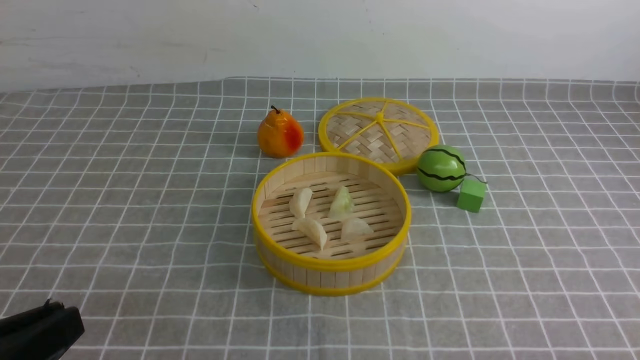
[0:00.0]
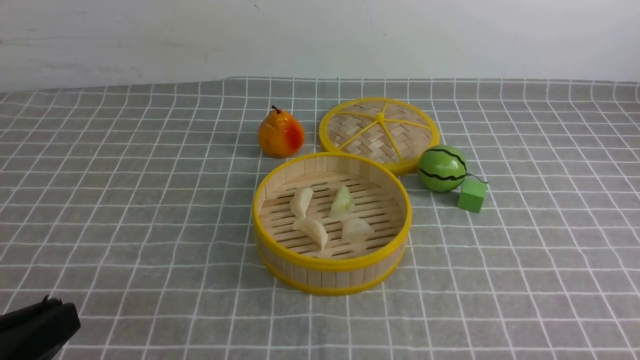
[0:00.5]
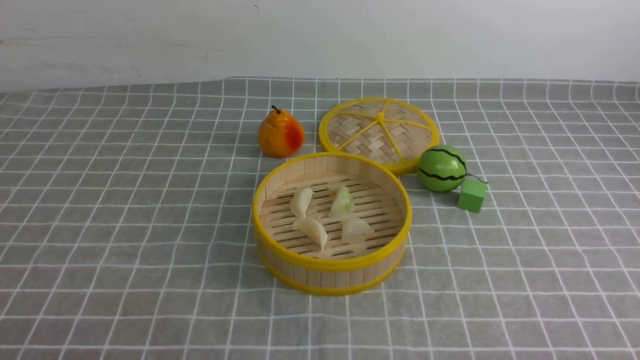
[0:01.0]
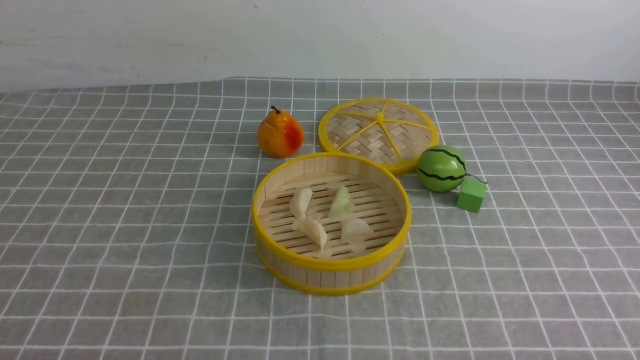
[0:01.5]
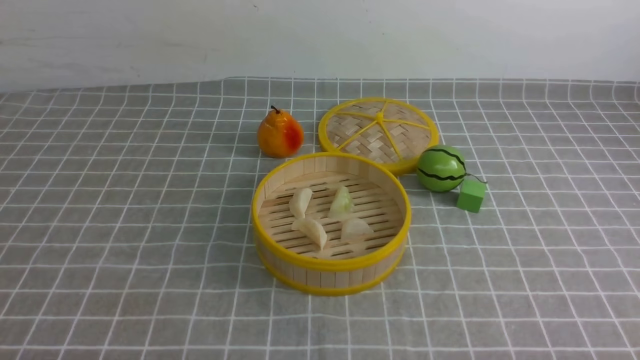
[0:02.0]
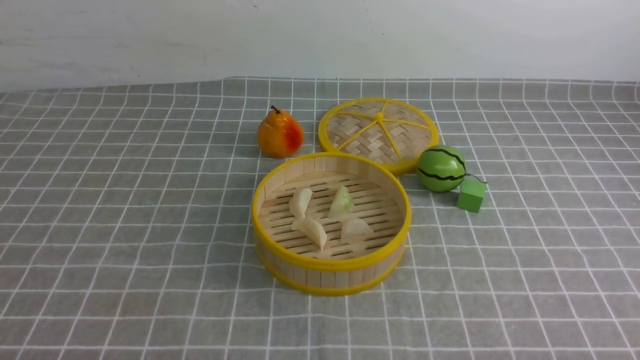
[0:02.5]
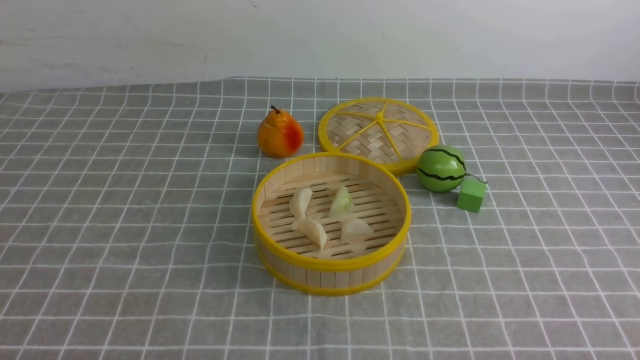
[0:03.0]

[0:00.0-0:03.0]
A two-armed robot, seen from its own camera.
Task of the whole recording: put the dumplings into the steamer on the table with the grey tablecloth.
0:00.0 to 0:01.5: The left gripper goes roughly 10 cm downward.
0:01.5 to 0:03.0: Both grippers stay about where they are.

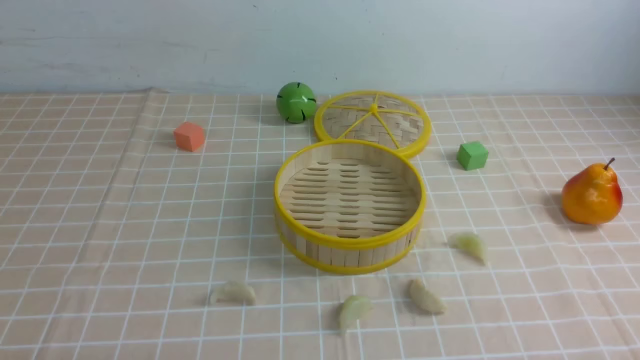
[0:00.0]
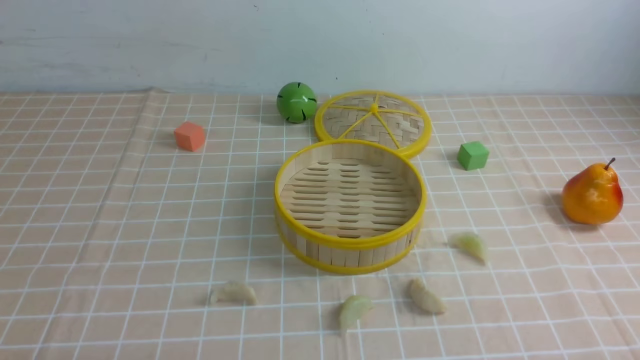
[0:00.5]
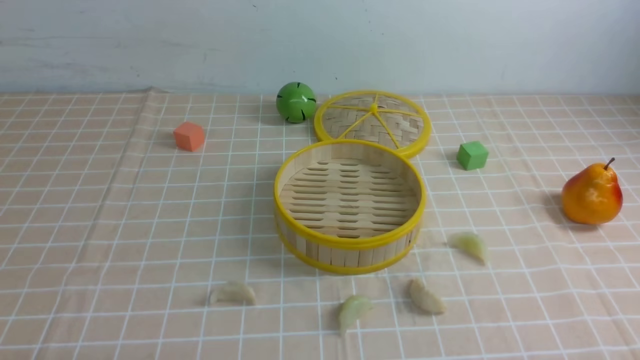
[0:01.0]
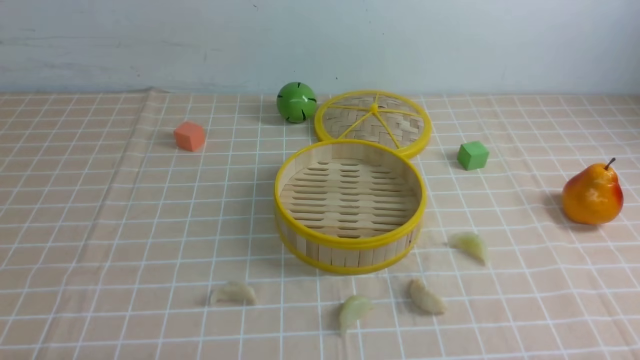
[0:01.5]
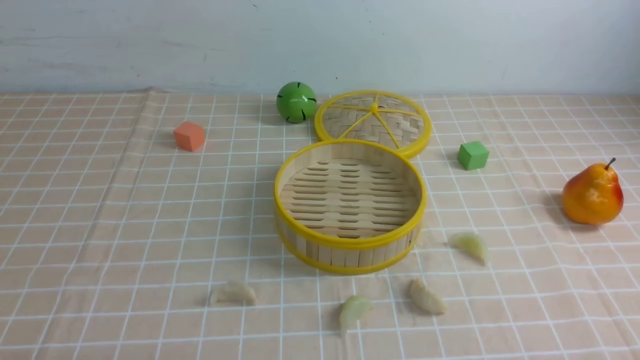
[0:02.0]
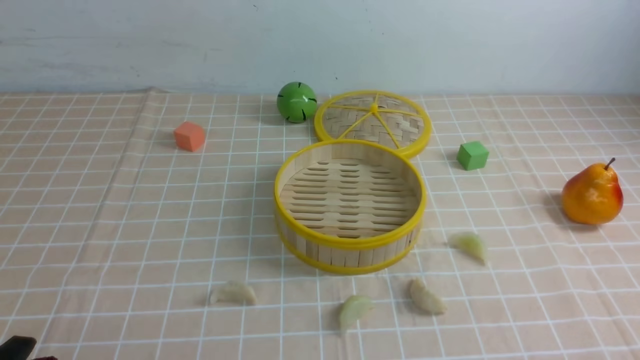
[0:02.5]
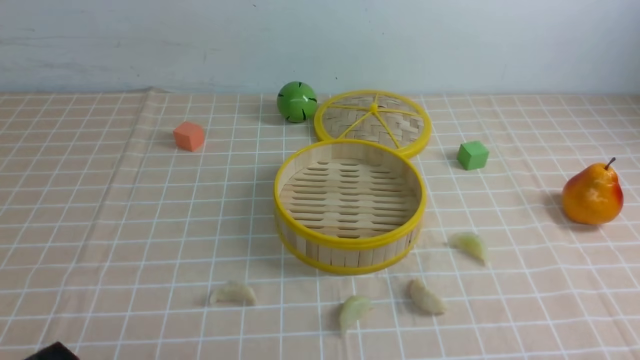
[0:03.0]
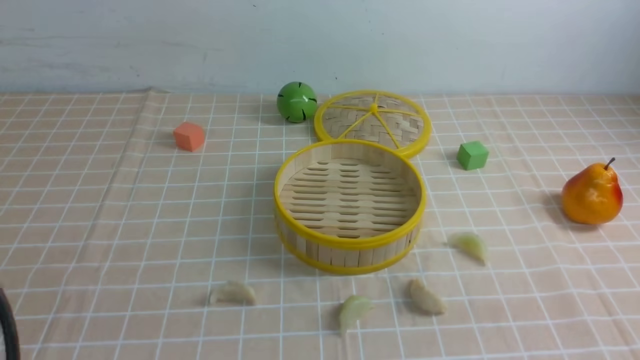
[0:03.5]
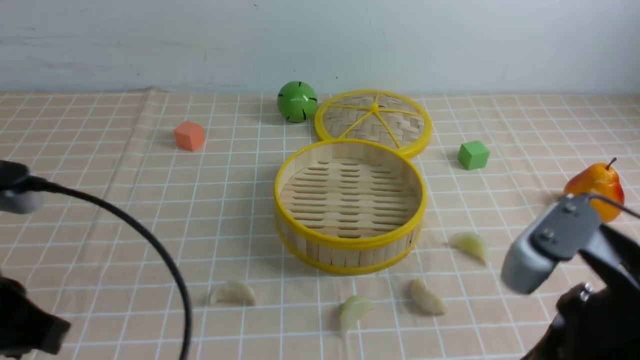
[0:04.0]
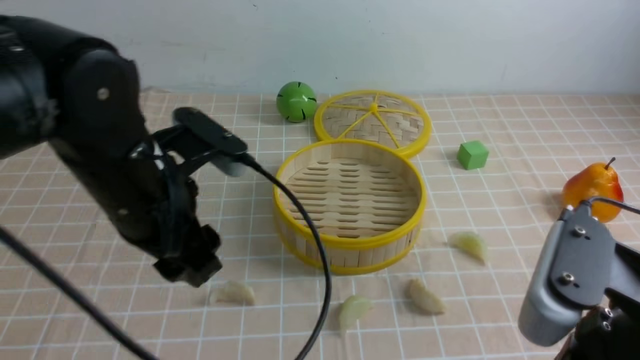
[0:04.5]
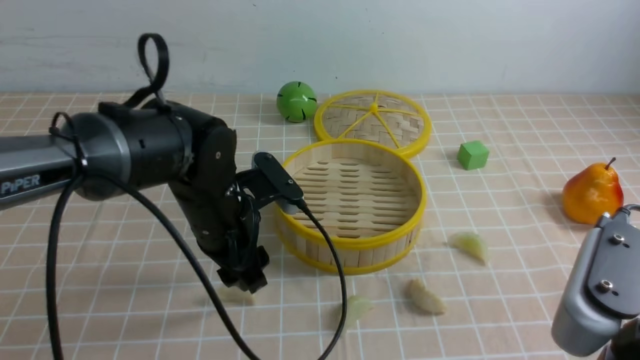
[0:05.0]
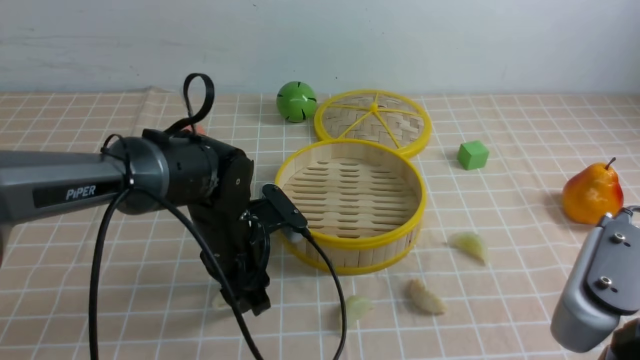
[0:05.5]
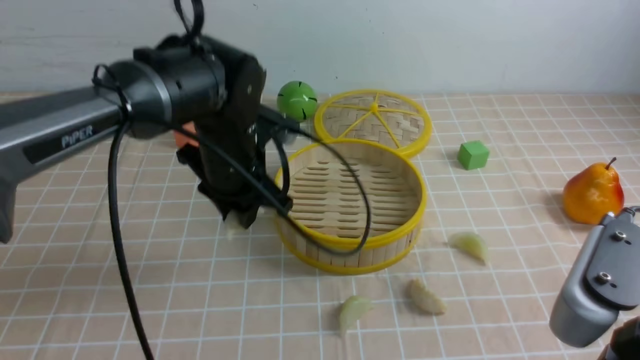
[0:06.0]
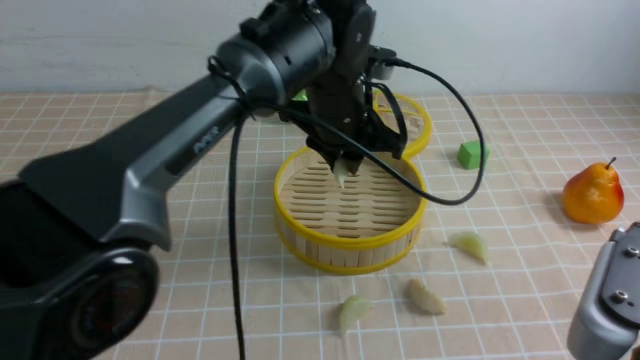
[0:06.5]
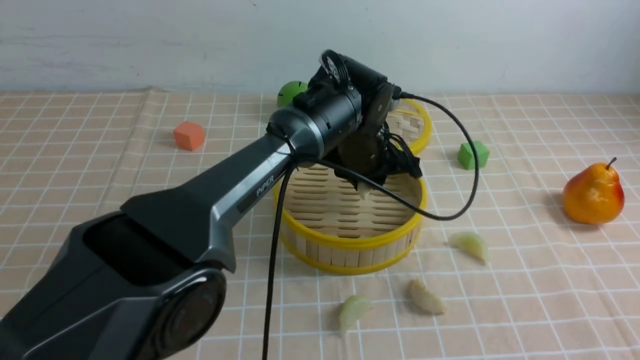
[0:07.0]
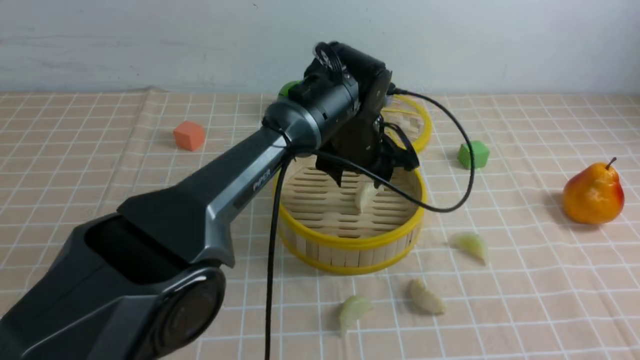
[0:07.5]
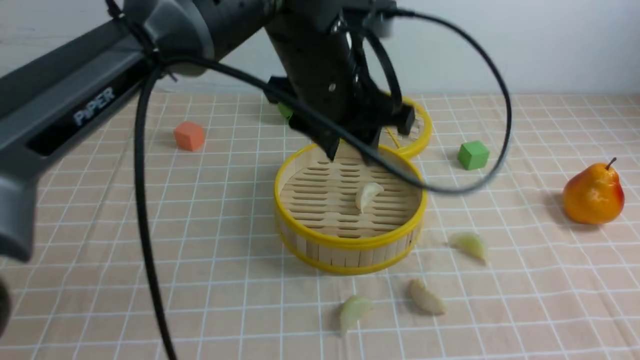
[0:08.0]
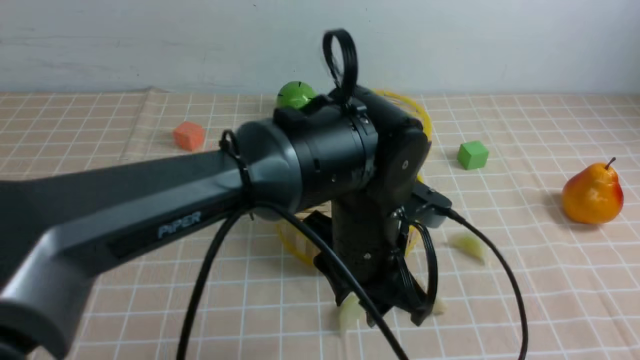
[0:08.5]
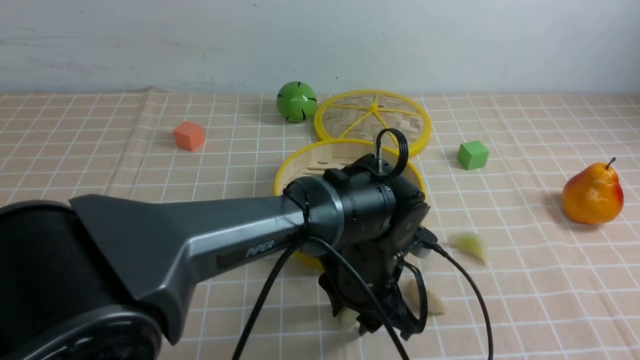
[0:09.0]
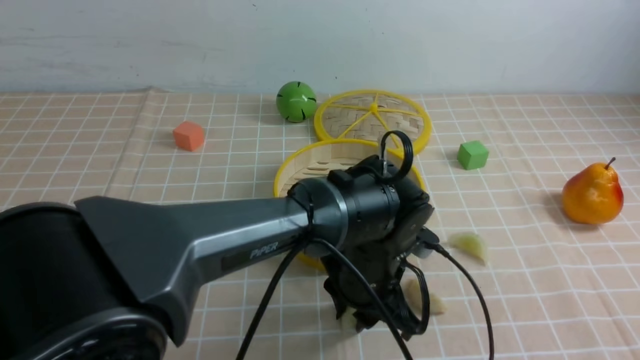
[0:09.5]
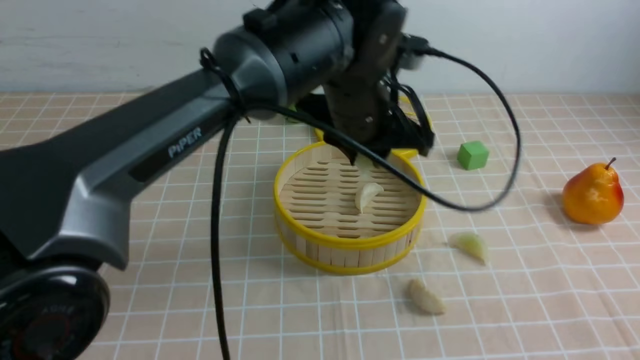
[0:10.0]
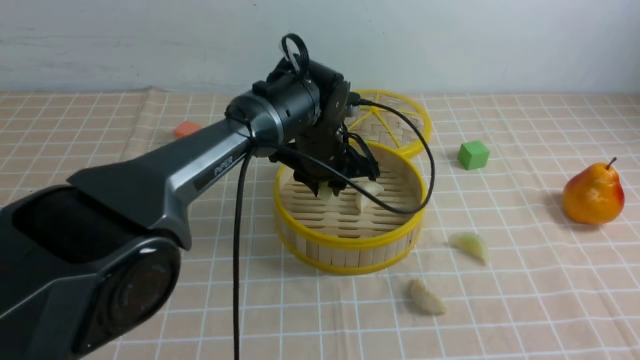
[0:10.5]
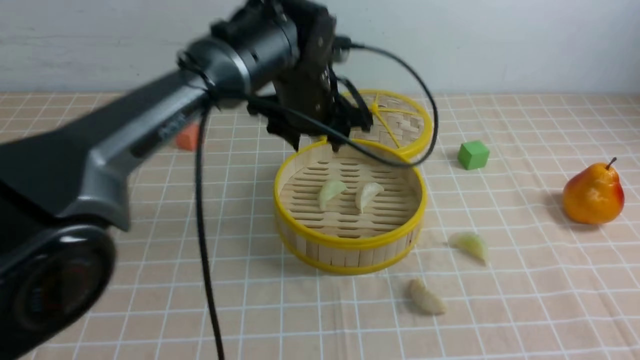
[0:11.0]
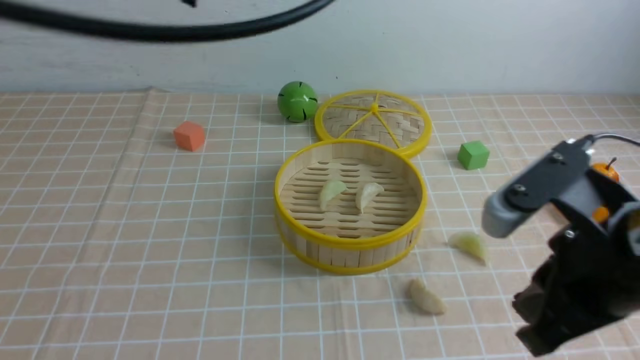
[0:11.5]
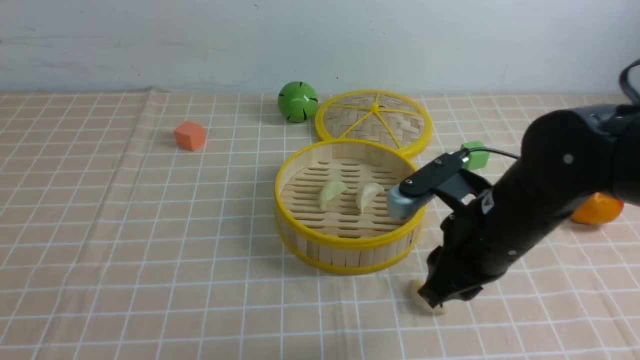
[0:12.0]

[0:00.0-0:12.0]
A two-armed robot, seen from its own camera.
Task of the whole recording: put the dumplings into the steamer on the table with the brown tablecloth.
Step, 0:00.0 to 0:05.5: use the left arm to grab a dumpling.
Step, 0:06.0 to 0:07.5: use the left arm to put the dumpling into the steamer.
Step, 0:08.0 to 0:09.5: use the left arm to grab a dumpling.
Step, 0:10.0 to 0:10.5: use the left arm to put the dumpling into the steamer.
0:02.0 to 0:04.0: The left gripper goes about 20 cm upward and forward, and closes; the right gripper is displaced upward, to the left and forward by approximately 20 cm, and closes its fingers.
0:04.0 to 0:06.0: The left gripper shifts approximately 25 cm forward and to the right, and opens, then closes again.
0:06.0 to 0:08.0: The left gripper travels to the right and upward by some 15 cm, and opens up, while the right gripper shifts roughly 5 cm to the right.
0:08.0 to 0:10.0: The left gripper goes downward and returns, approximately 20 cm each way.
0:10.0 to 0:12.0: The left gripper moves backward and to the left, roughly 40 cm, and closes. Meanwhile the right gripper travels forward, to the left and downward by some 30 cm.

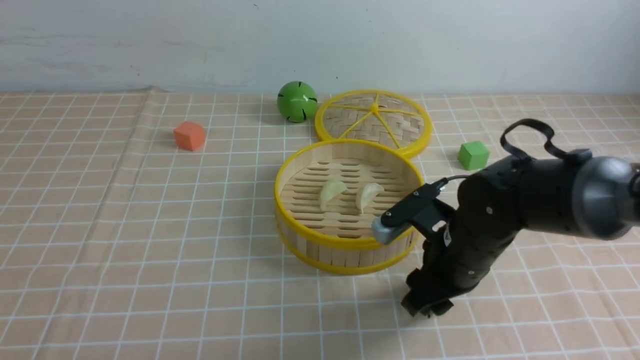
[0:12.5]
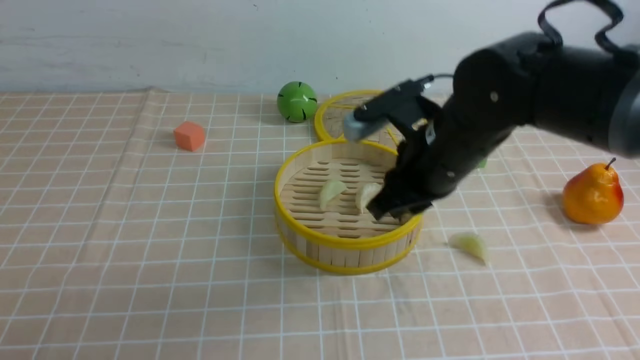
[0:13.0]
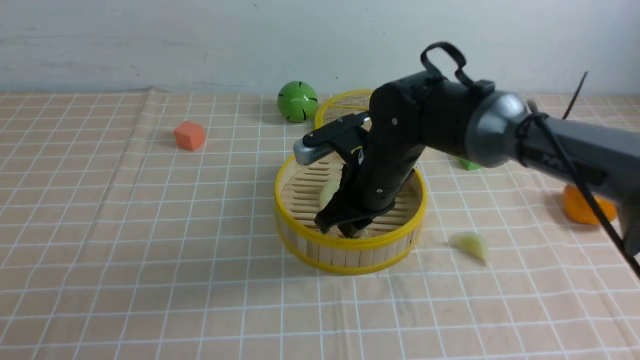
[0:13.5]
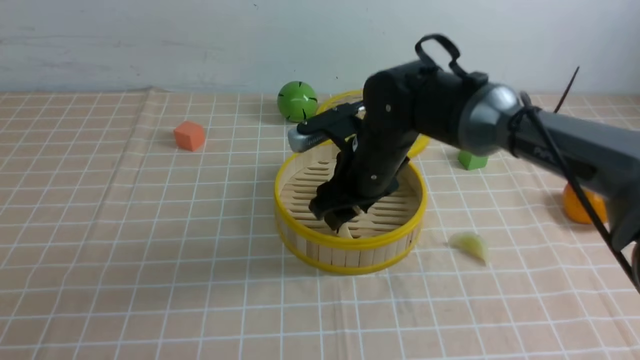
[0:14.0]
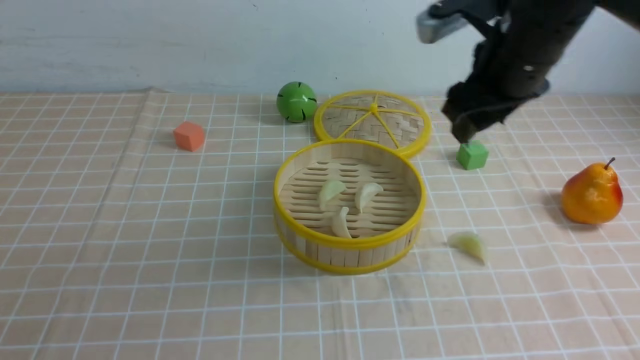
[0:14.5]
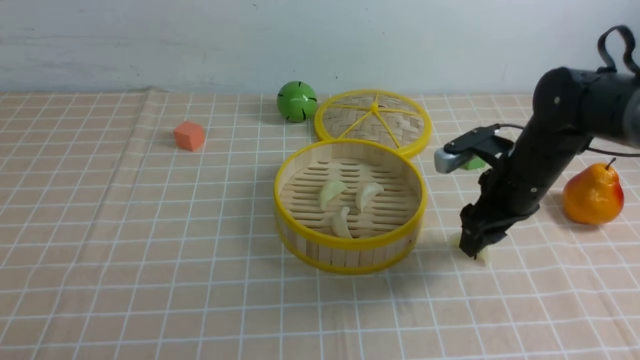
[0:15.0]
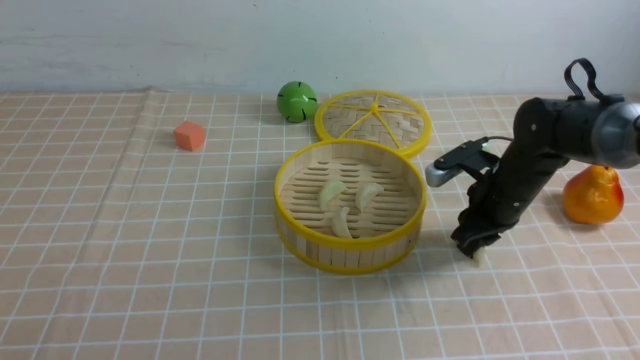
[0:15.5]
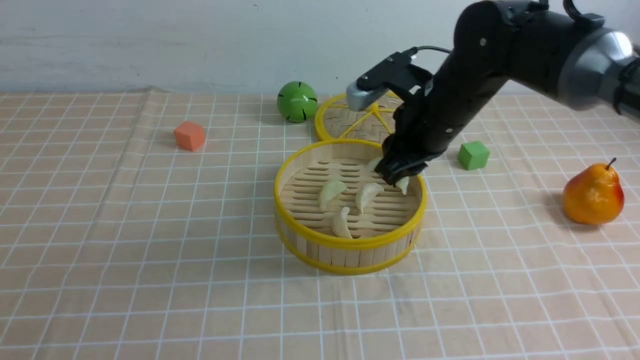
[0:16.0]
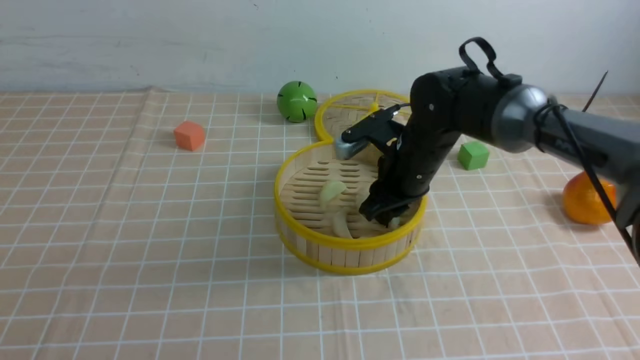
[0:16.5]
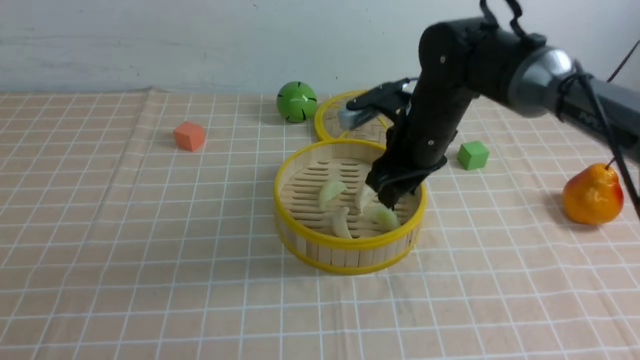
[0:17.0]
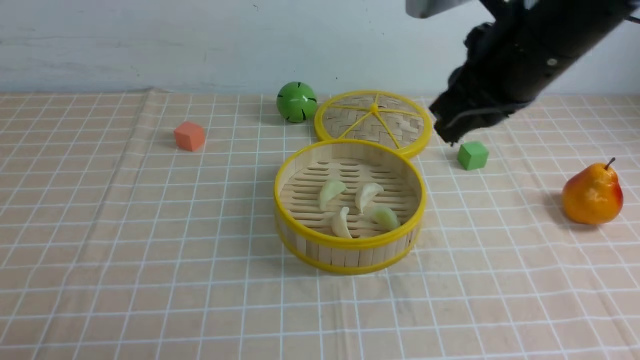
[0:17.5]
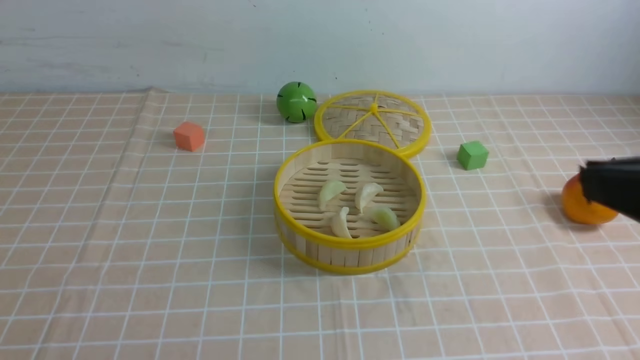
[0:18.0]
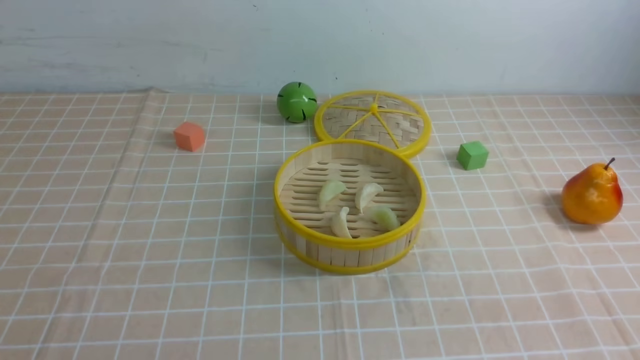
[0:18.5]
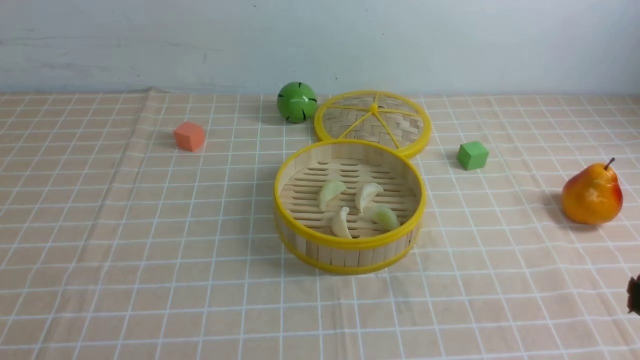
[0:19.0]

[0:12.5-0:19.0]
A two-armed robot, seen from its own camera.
Task of the whole recording: put the dumplings into the steamer on the table with the brown tablecloth.
Step, 0:13.0 to 0:14.0: use the right arm to put the dumpling into the steamer.
Step, 0:14.5 to 0:15.0: use the right arm to grab a dumpling.
Step, 0:15.5 to 0:17.0: use the right arm to put the dumpling into the steamer.
0:12.5 to 0:14.5: The right gripper goes up and down, about 15 cm each way, reversing 2 times, and closes, then reopens.
0:14.5 to 0:17.0: The right gripper swings up and down, roughly 15 cm each way, with 3 reversals.
0:17.0 to 0:19.0: The right gripper travels backward and to the right by about 40 cm, and closes its fingers.
